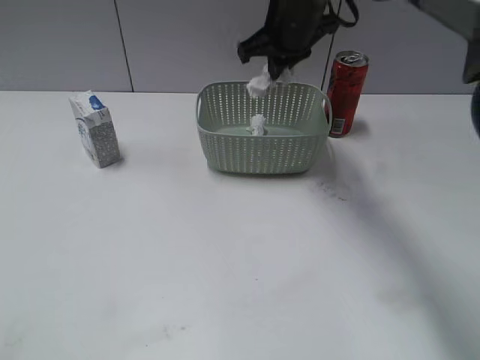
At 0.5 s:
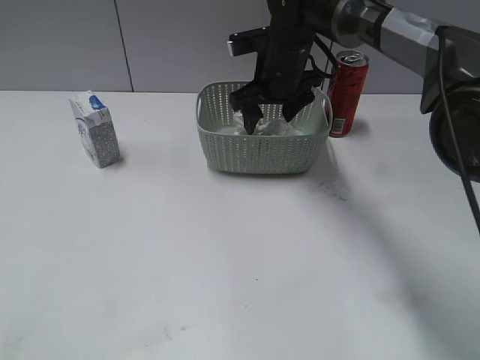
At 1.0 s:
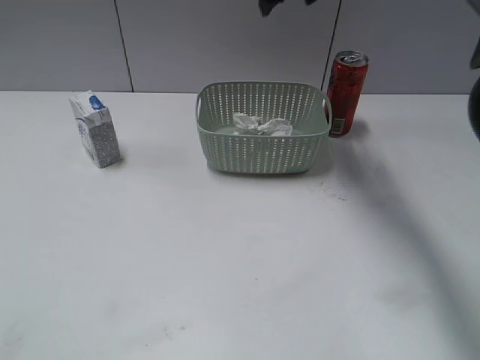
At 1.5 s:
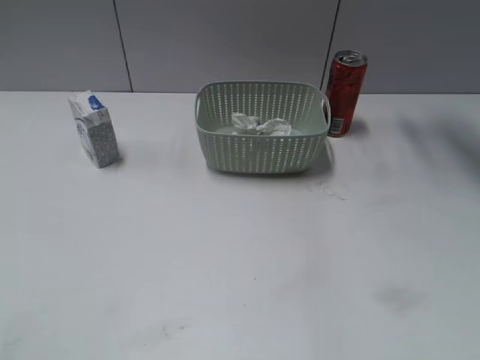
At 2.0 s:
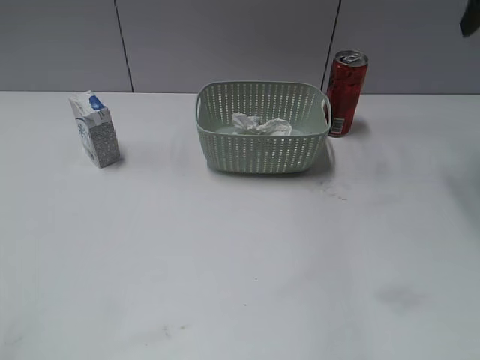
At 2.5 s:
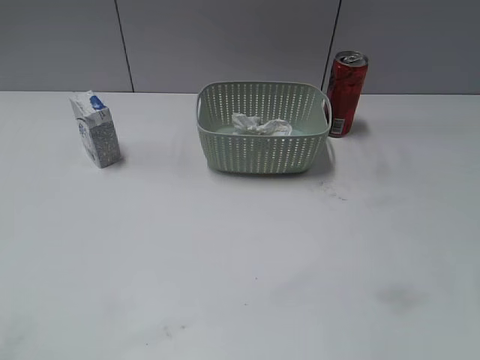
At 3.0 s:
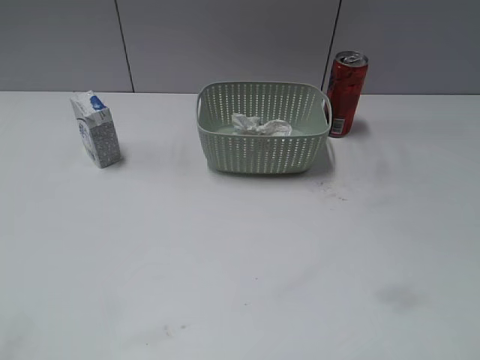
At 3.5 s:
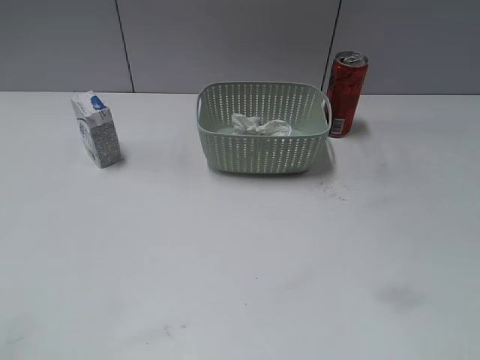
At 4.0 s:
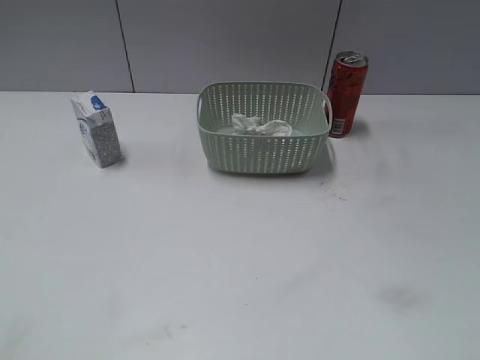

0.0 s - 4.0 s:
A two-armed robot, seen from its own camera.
0.0 s - 2.0 s: The right gripper shifts some 25 cm to the right and upward, and opens up.
2.0 s - 4.0 s: The right gripper heads backward, covering some 40 cm.

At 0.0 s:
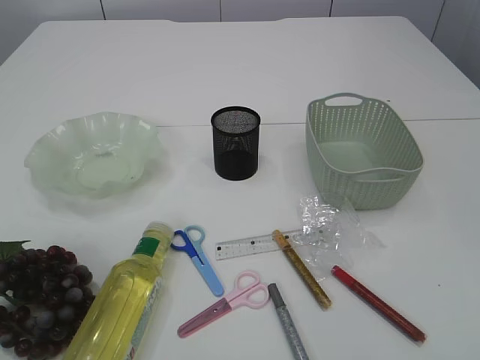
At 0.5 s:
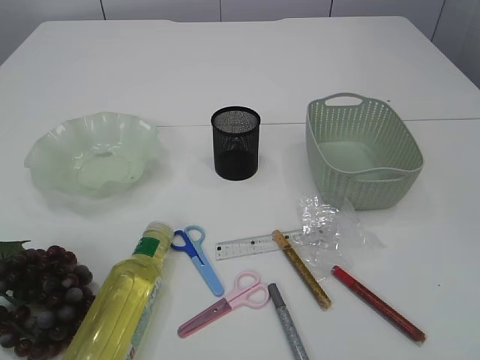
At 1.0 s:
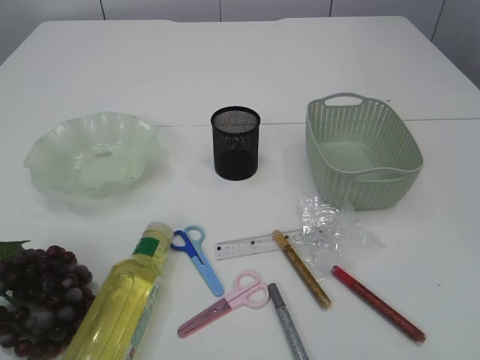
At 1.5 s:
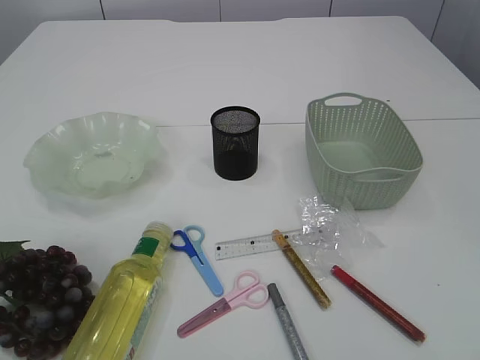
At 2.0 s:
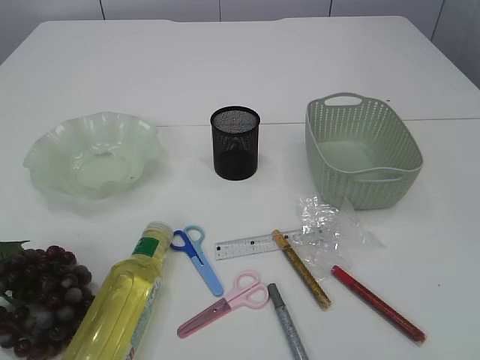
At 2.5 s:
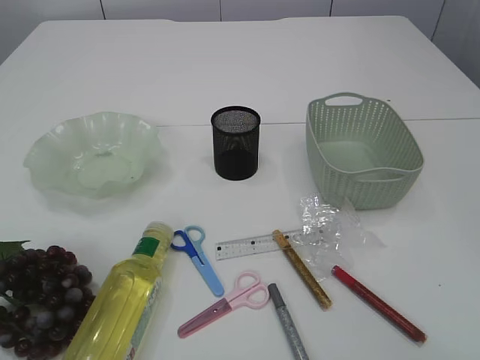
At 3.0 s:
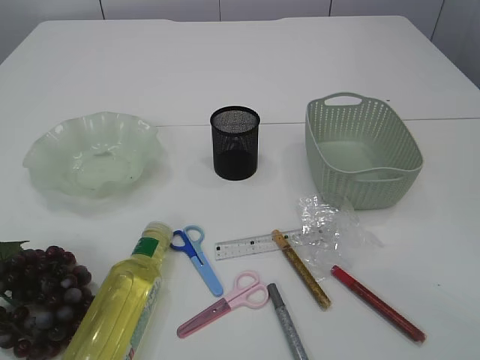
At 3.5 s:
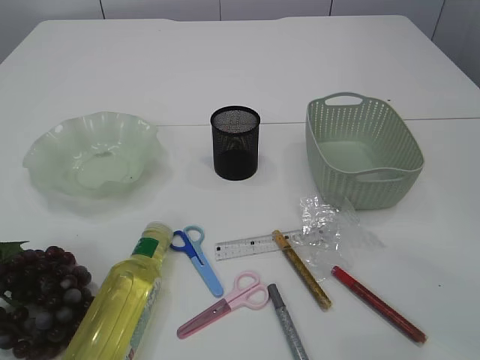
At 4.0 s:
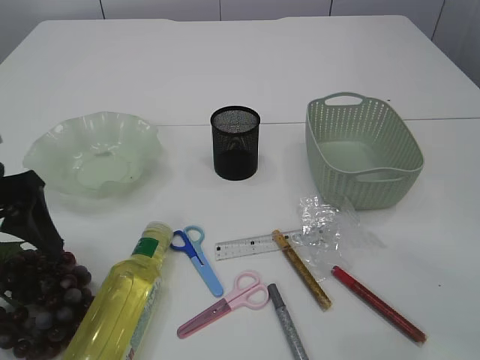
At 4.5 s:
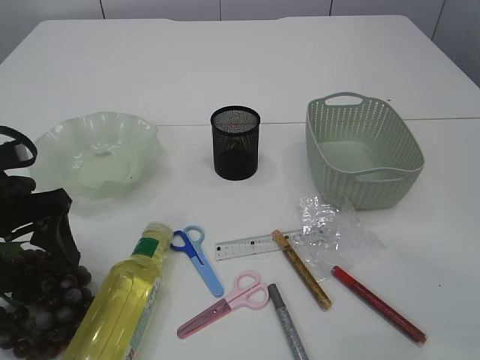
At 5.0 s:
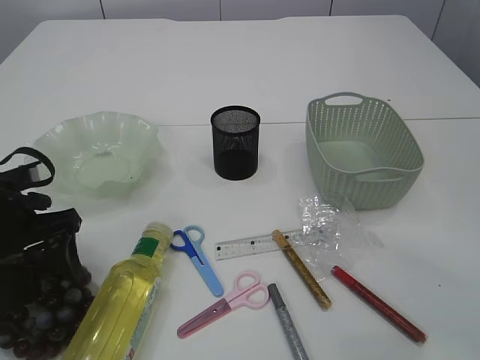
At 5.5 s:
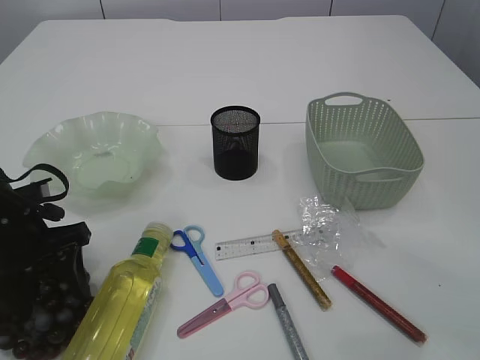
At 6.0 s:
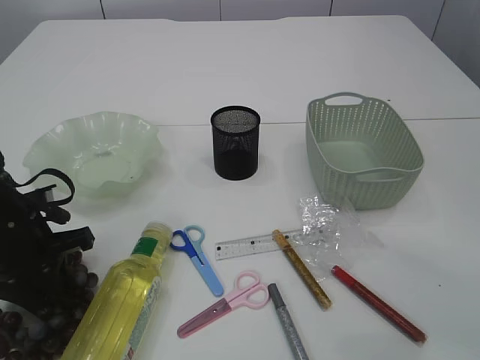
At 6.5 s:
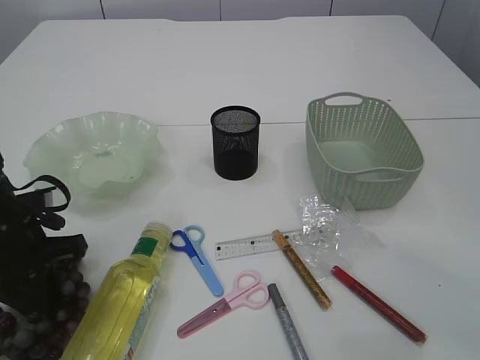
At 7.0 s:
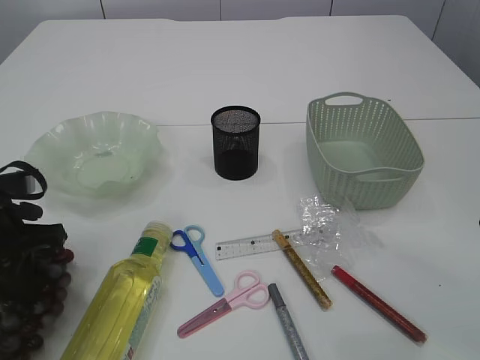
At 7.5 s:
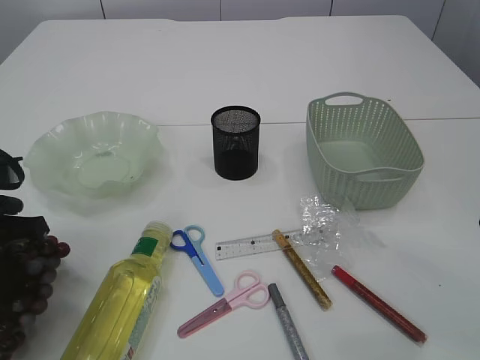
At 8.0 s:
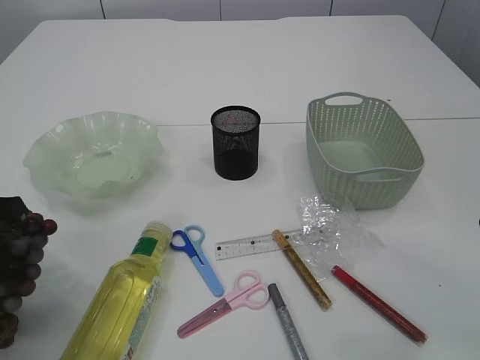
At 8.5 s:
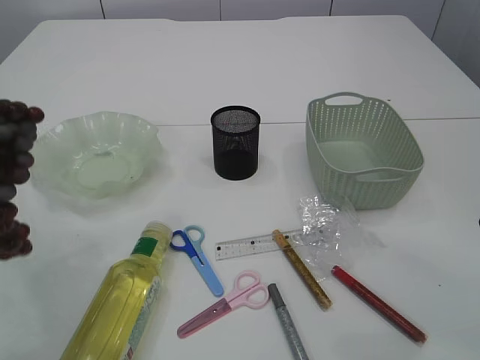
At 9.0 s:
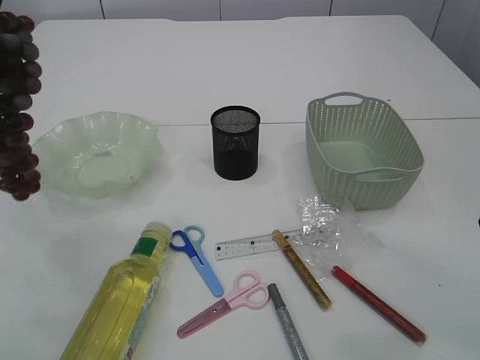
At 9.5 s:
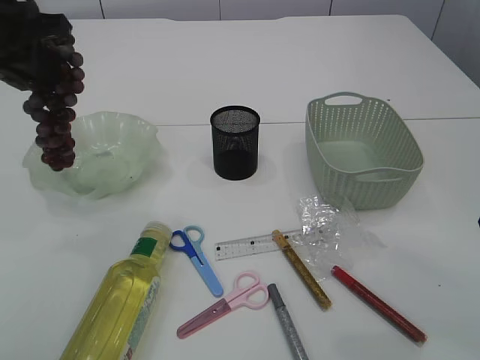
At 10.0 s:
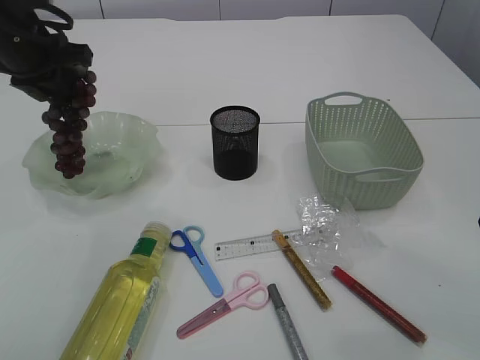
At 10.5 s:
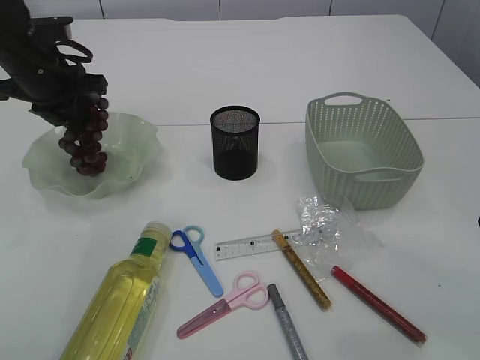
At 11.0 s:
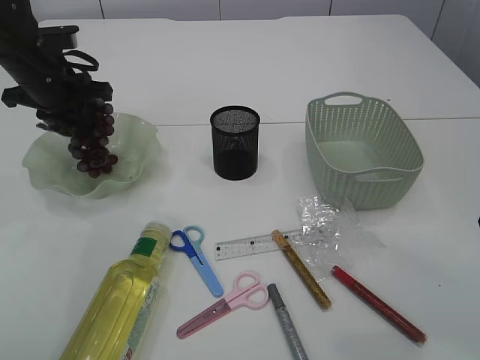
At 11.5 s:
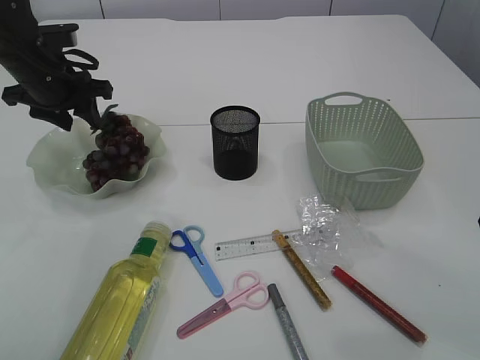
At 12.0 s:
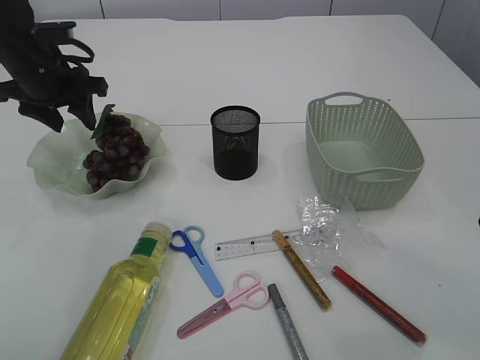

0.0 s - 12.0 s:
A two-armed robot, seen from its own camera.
Step, 0.0 s - 8.5 s: Pick up the grapes.
2.0 s - 4.0 s: The left gripper moves forward, approximately 25 cm.
4.0 s - 6.0 s: The left gripper travels downward by some 10 cm, and closes.
6.0 s - 8.0 s: The left gripper is displaced upward by about 10 cm.
8.0 s - 10.0 s: The left gripper moves forward, about 20 cm.
10.0 s - 12.0 s: The left gripper moves downward, roughly 5 cm, and opens.

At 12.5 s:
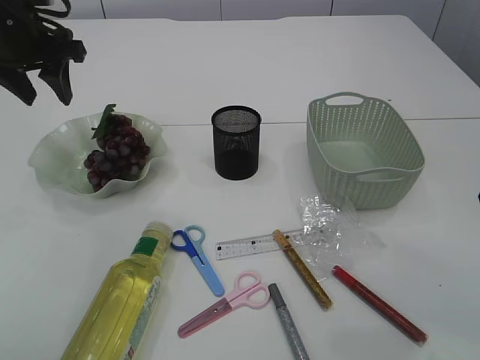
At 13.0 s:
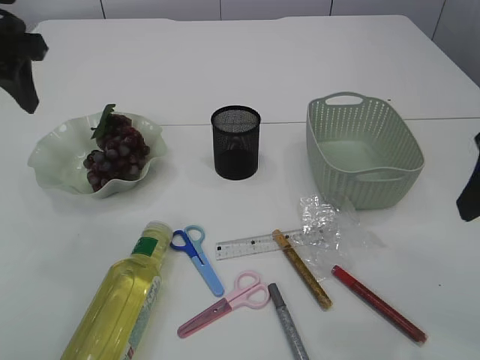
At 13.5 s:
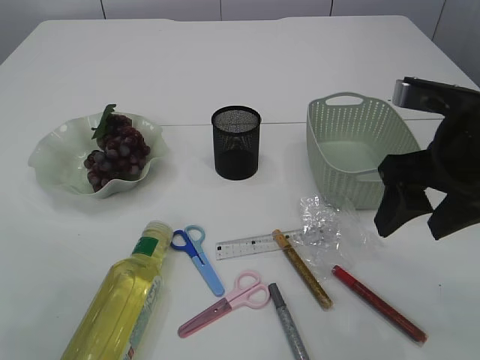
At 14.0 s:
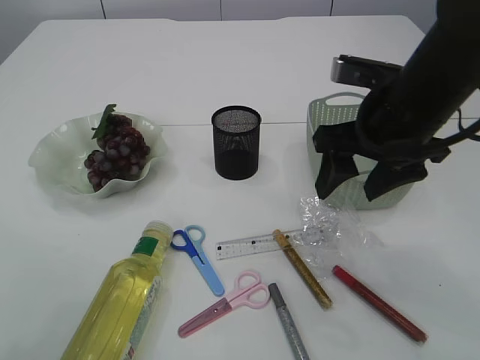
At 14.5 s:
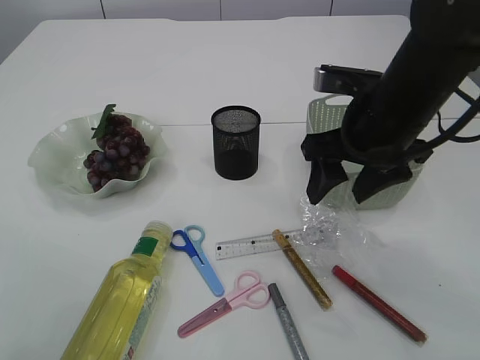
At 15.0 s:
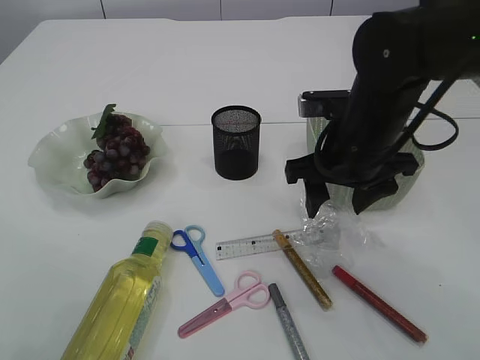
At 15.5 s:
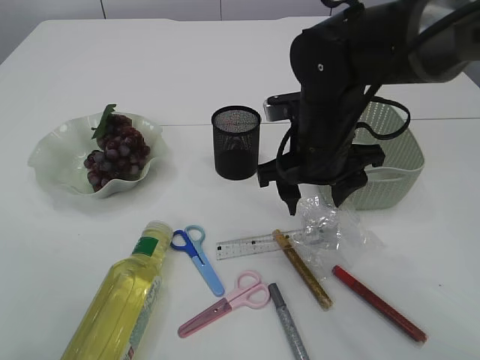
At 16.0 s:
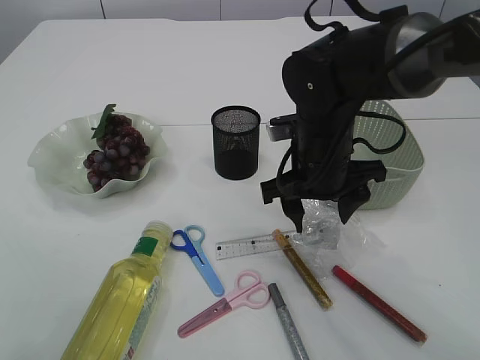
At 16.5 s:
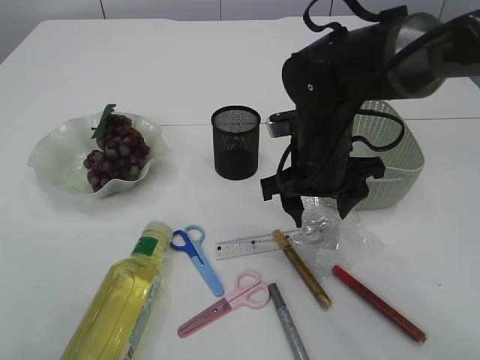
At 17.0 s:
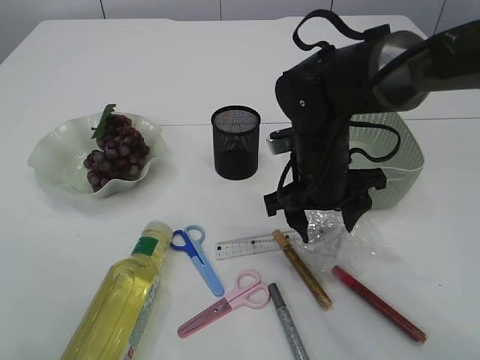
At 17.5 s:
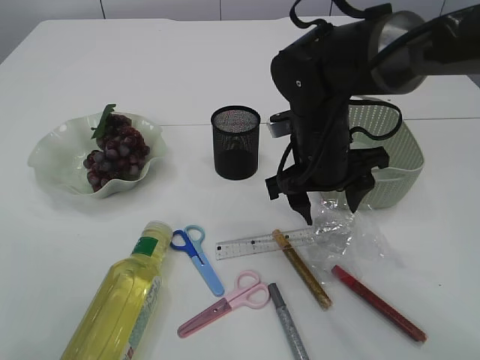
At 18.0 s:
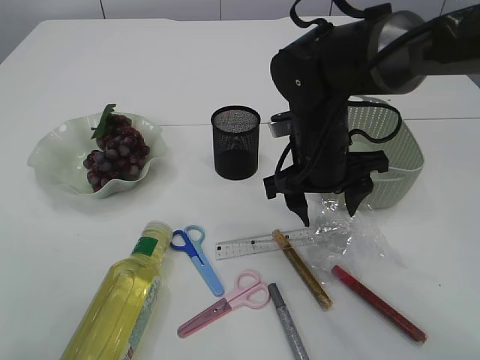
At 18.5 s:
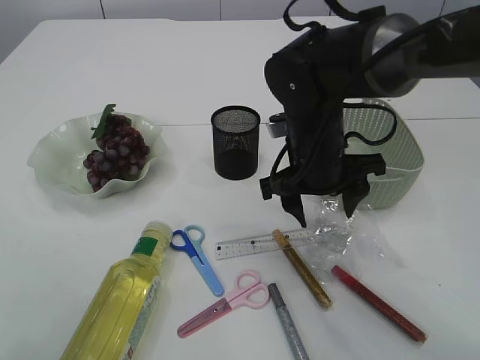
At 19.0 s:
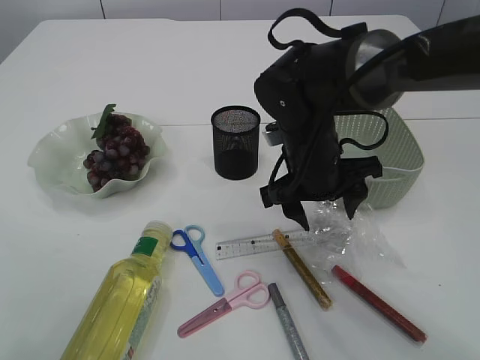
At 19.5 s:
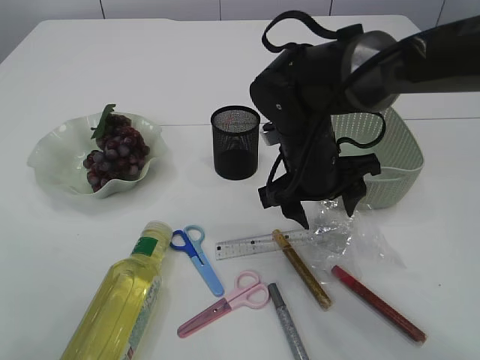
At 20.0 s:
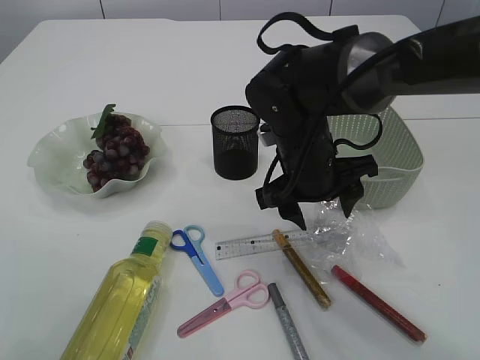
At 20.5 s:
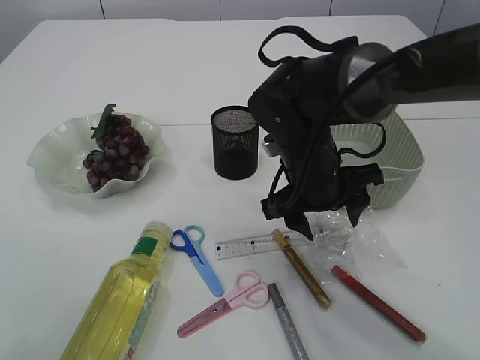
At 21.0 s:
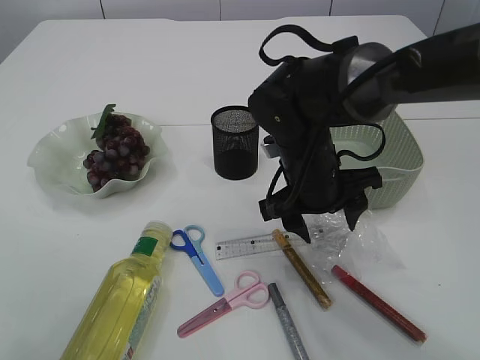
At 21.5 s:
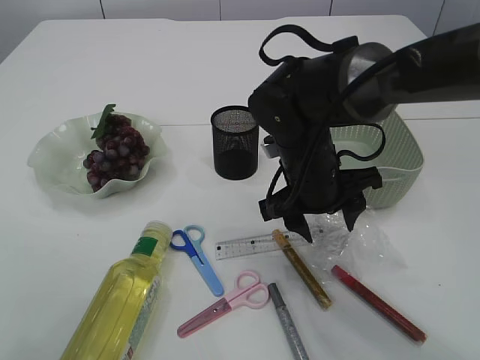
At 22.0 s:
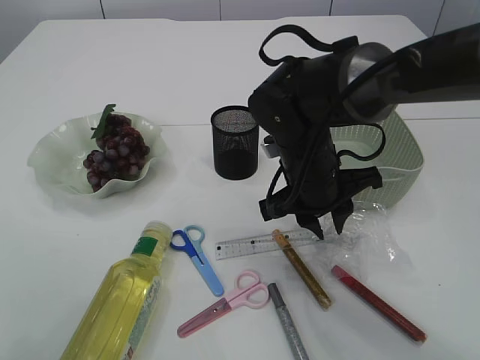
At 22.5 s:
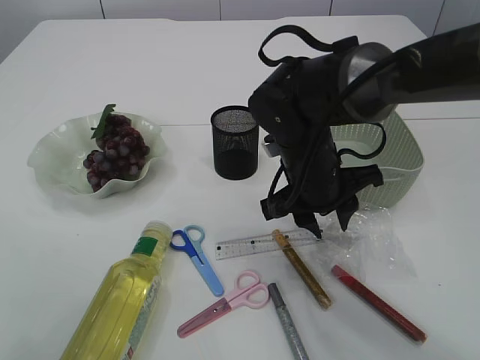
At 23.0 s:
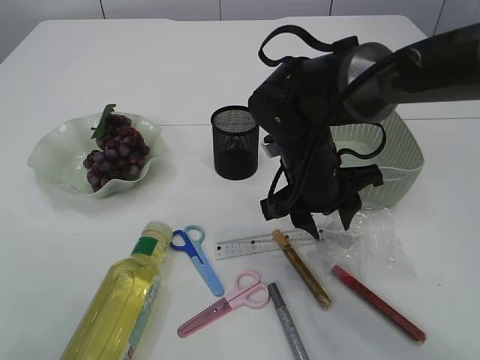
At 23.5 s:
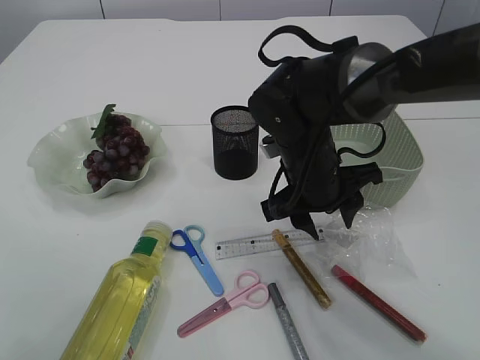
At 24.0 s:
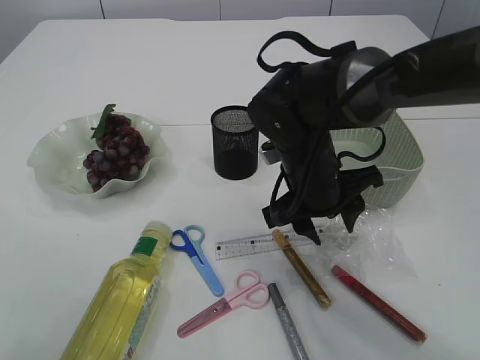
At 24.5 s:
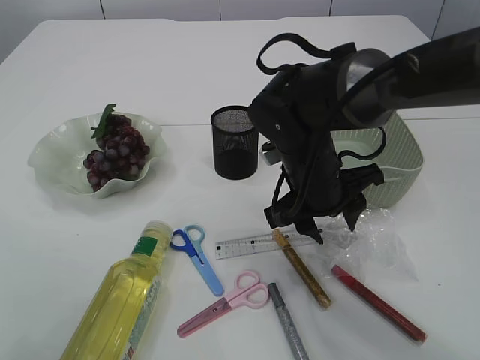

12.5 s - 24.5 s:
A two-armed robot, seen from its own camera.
12.5 s - 14.5 s: The right gripper heads to the left, forward and downward, covering approximately 15 cm; the left gripper travels backward and upward by about 20 cm.
14.5 s - 16.5 s: The right gripper heads downward and to the left, covering approximately 10 cm.
16.5 s - 20.5 s: The grippers stay close to where they were, moving slightly.
20.5 s - 22.5 s: The right gripper closes its fingers.
22.5 s - 24.5 s: The grippers stay close to where they were, moving slightly.
